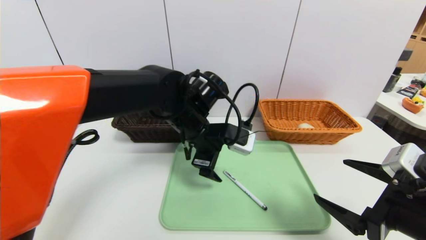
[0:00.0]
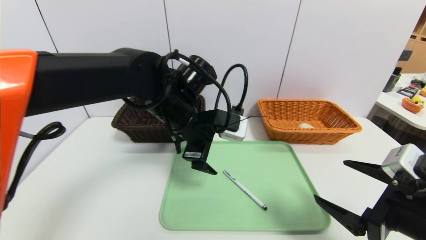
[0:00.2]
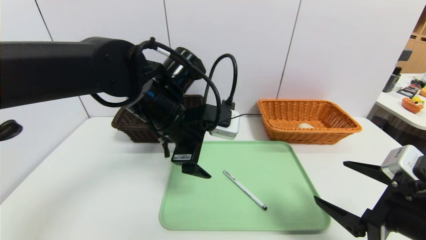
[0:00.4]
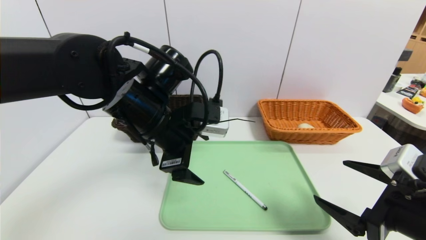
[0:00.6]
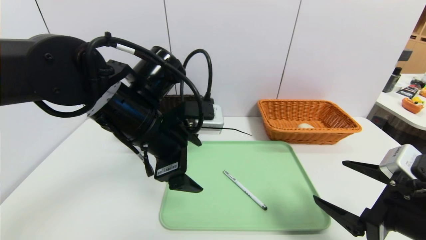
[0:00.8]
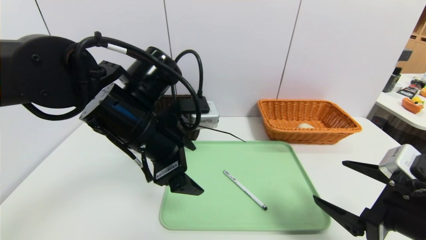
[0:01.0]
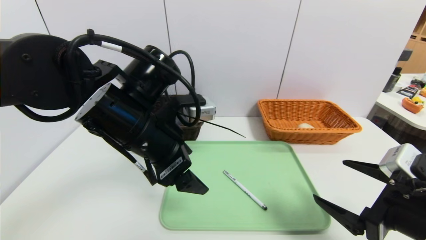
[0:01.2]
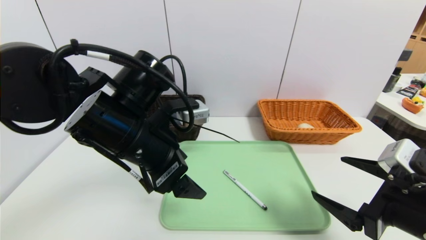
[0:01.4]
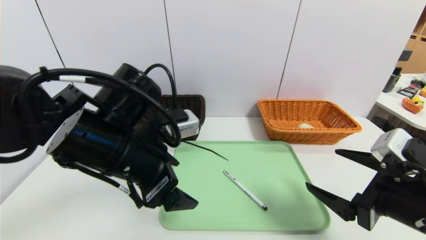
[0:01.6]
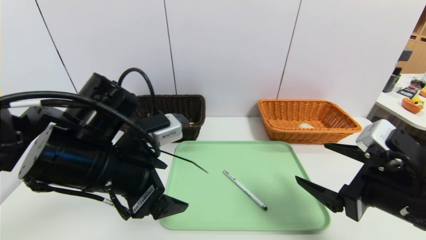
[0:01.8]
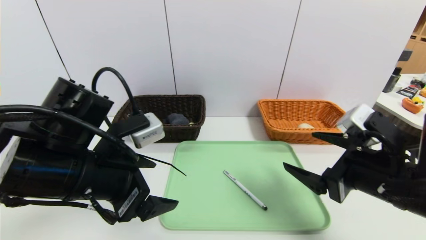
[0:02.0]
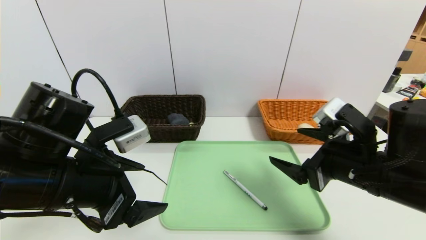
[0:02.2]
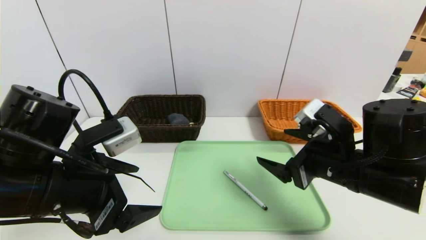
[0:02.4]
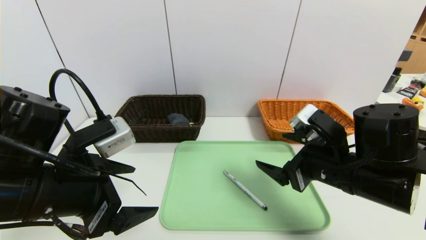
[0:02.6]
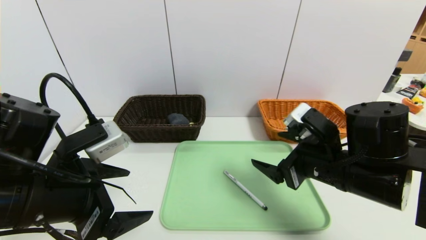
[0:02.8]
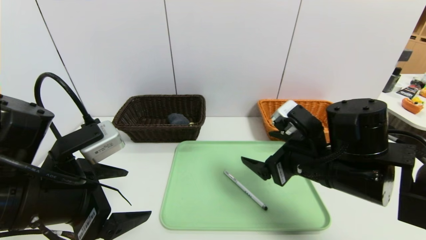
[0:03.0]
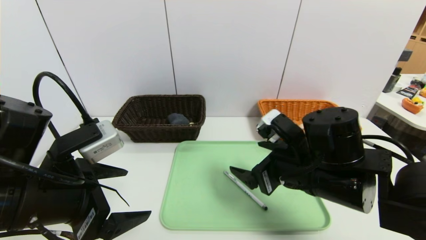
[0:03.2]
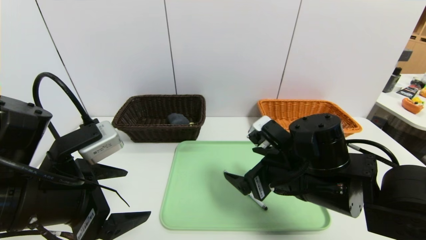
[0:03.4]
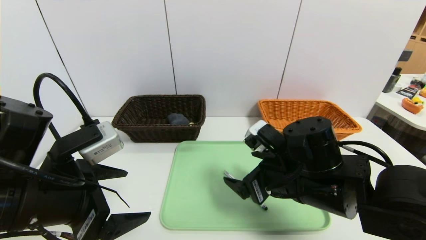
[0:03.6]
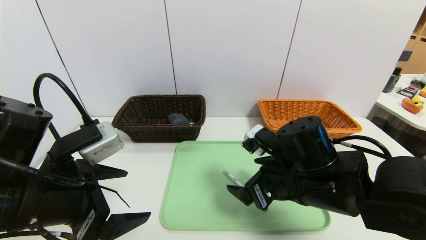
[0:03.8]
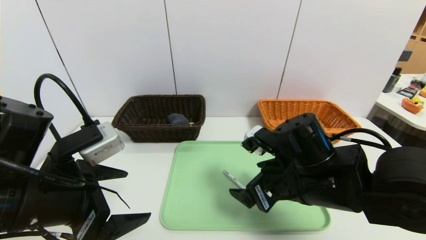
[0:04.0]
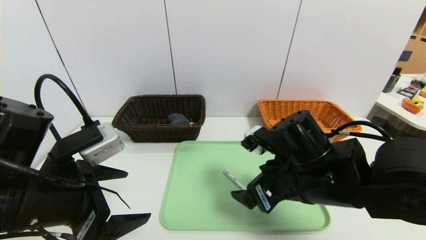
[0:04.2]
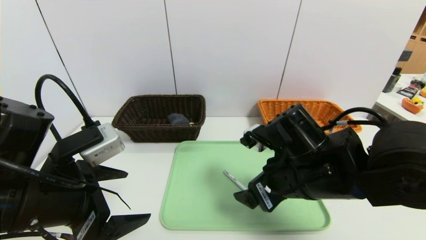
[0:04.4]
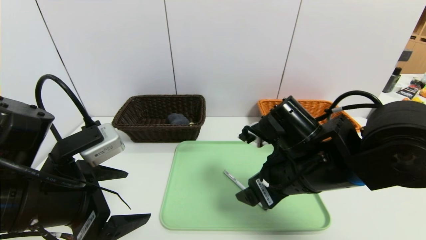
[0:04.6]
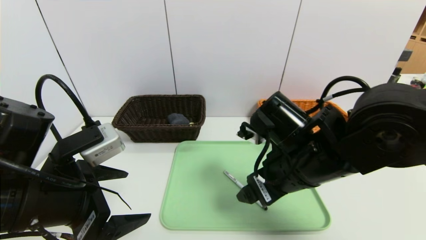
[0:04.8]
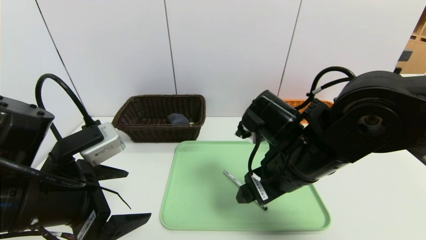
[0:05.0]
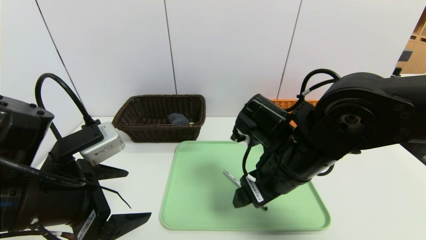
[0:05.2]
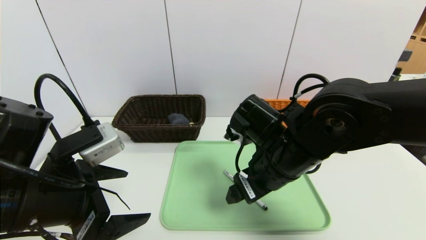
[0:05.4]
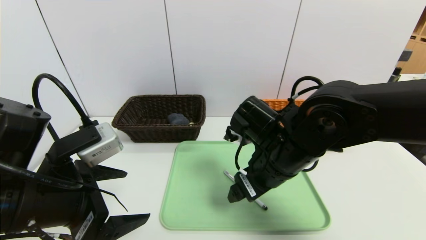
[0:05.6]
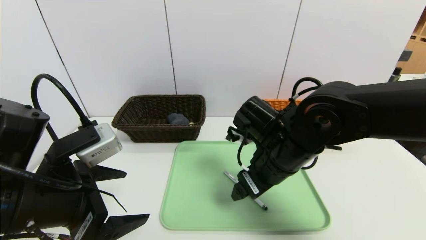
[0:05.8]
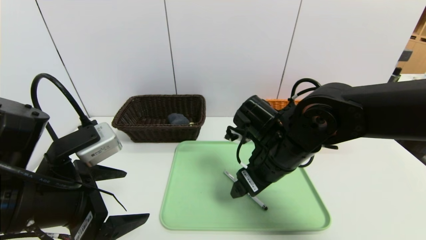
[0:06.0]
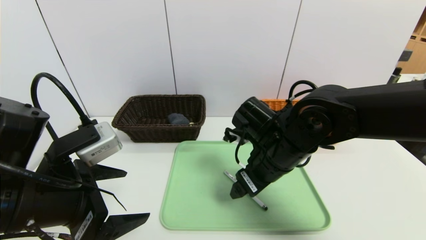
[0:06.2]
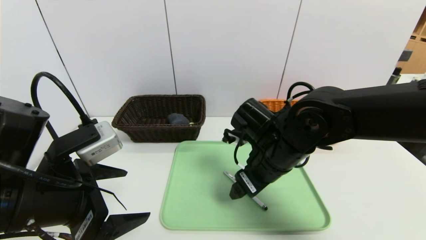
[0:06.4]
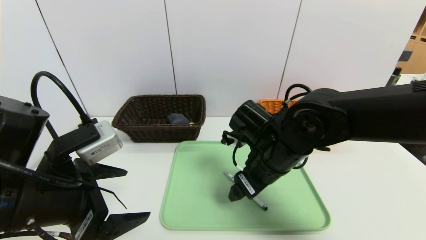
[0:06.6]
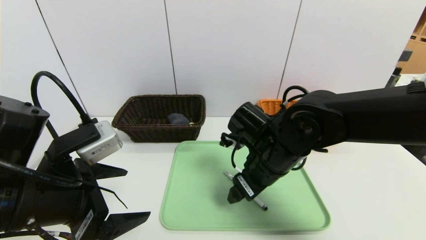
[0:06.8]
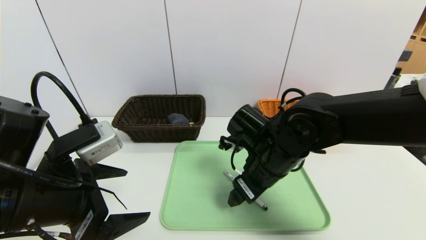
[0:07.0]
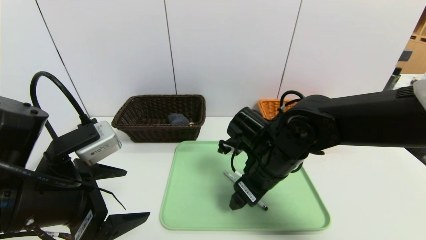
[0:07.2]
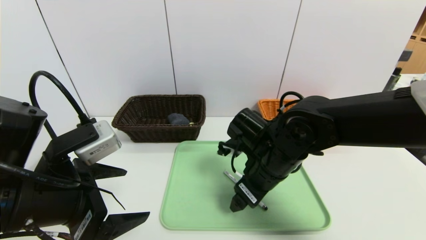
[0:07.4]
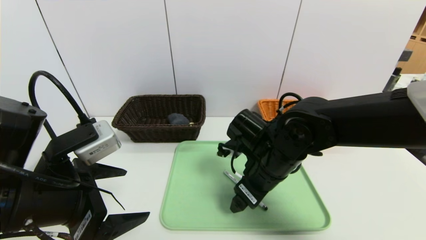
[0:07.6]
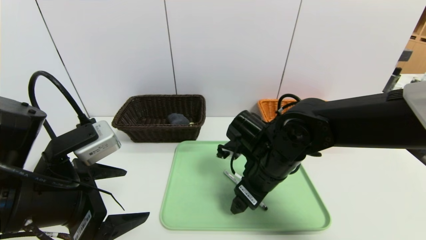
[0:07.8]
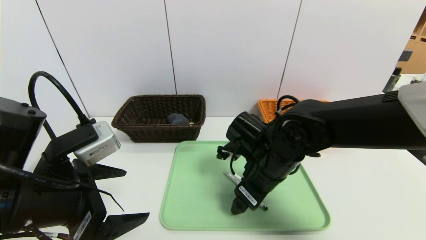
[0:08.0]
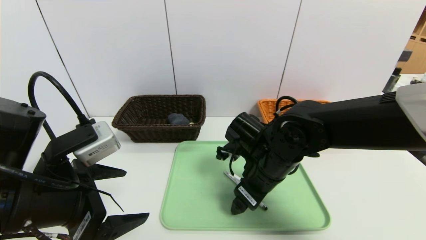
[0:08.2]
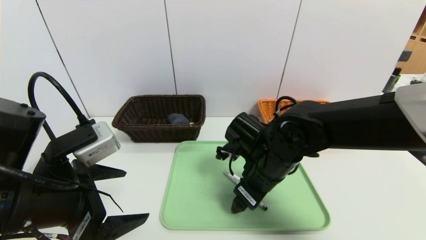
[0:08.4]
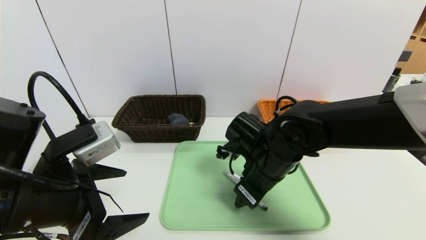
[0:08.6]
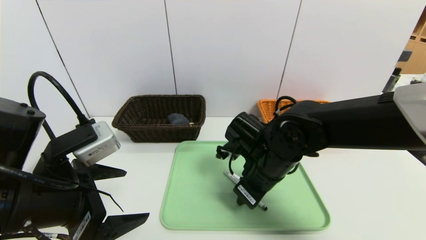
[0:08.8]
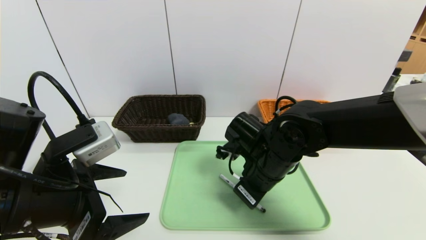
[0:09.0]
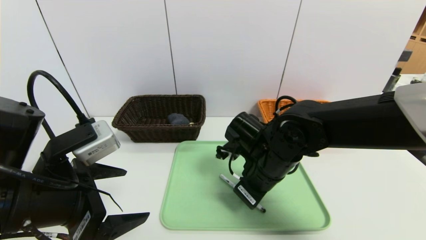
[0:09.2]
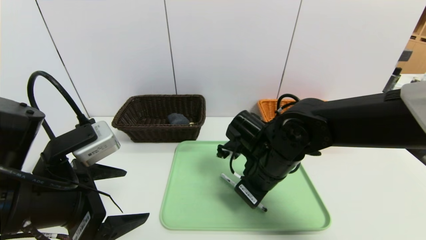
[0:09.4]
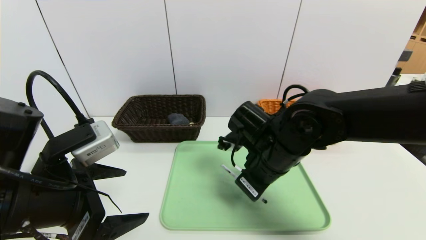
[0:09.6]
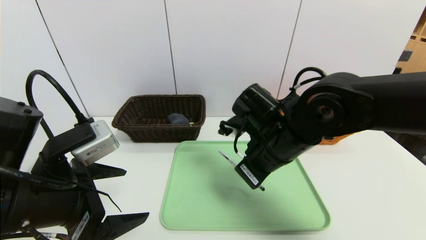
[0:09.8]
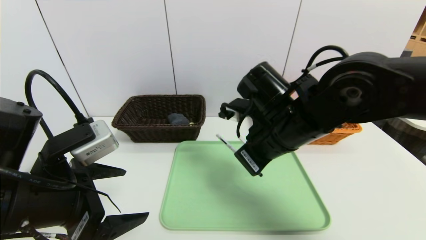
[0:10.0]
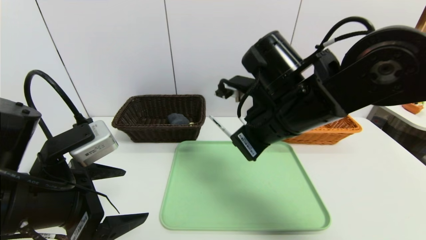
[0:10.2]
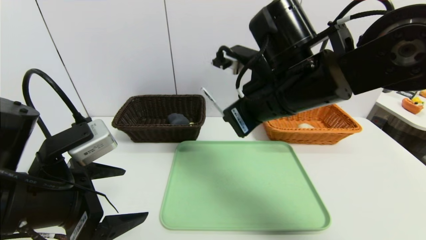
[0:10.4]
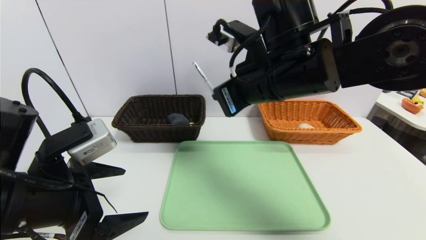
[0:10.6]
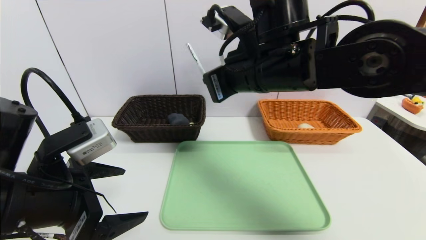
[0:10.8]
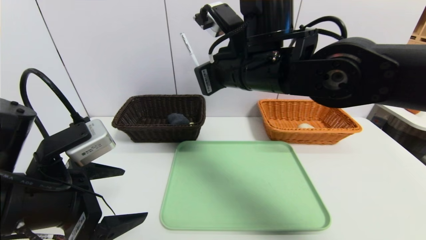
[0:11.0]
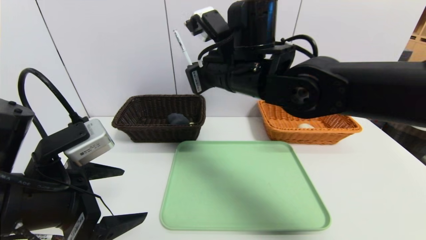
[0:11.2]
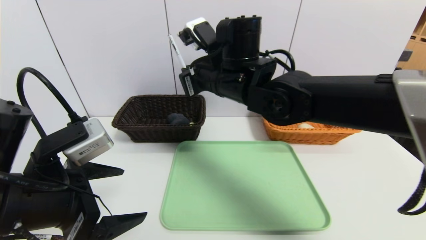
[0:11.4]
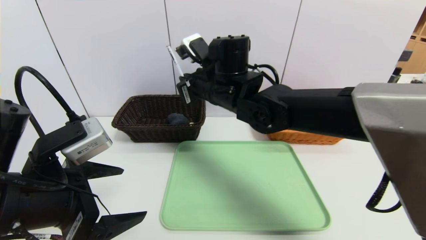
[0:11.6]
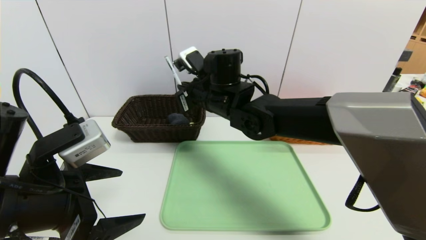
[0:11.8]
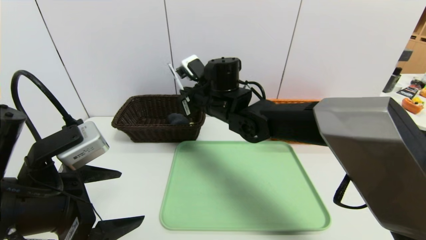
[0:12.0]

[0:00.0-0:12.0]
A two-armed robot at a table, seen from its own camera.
Task of the whole recording: place the food in the right basket with the right gripper, and place the non food items in the left basket with the left gripper.
0:00.0 to 0:01.6: The left gripper moves backward and to the left, roughly 15 cm.
0:01.6 to 0:03.0: The right gripper moves to the left and forward, approximately 10 cm; the left gripper moves to the left and backward, some 10 cm.
0:04.4 to 0:06.0: The right gripper ends up roughly 5 cm from where it was.
0:06.0 to 0:07.6: The grippers move only a little.
0:07.6 to 0:09.0: The right gripper closes up.
0:09.0 to 0:10.4: The right gripper goes roughly 15 cm upward.
0:10.4 to 0:12.0: The right gripper goes some 15 cm forward, to the left and downward.

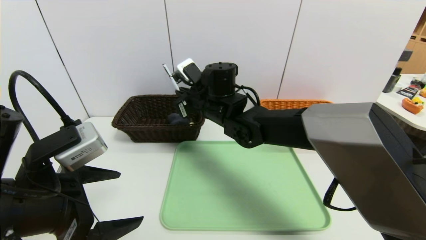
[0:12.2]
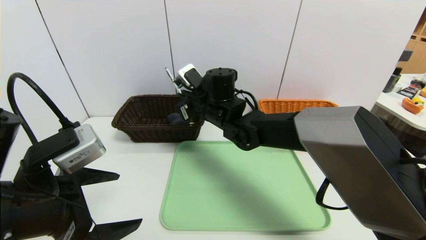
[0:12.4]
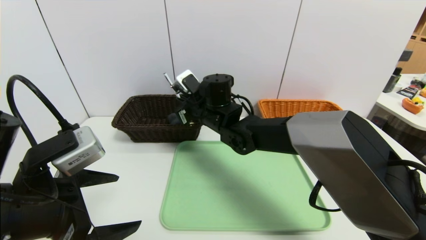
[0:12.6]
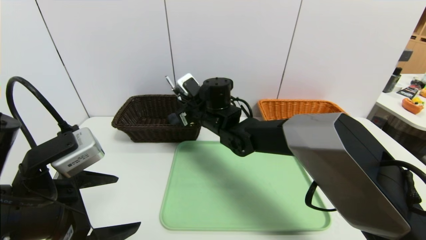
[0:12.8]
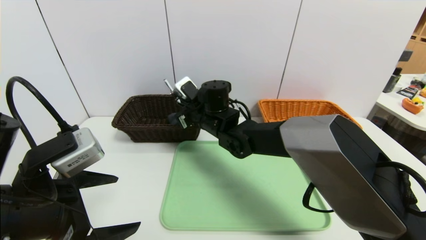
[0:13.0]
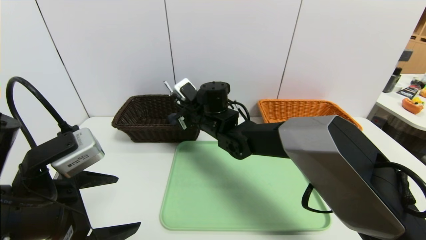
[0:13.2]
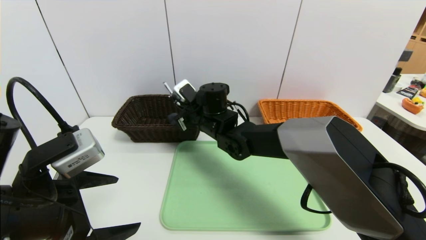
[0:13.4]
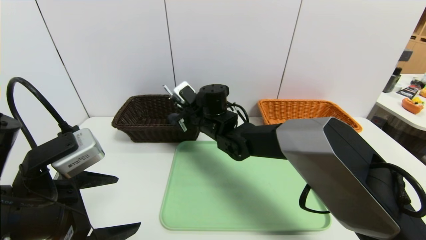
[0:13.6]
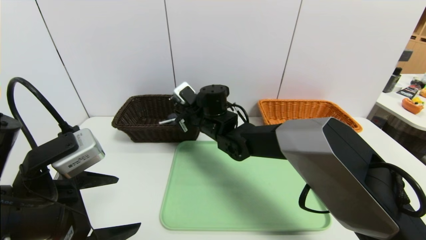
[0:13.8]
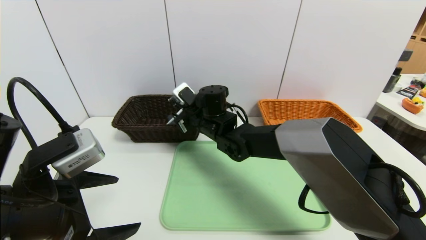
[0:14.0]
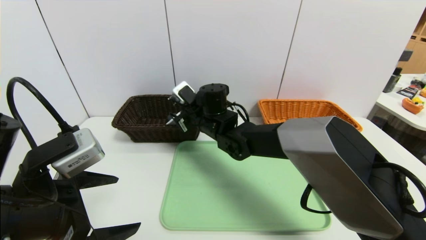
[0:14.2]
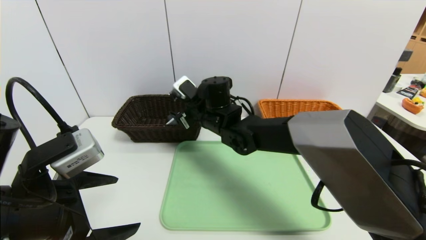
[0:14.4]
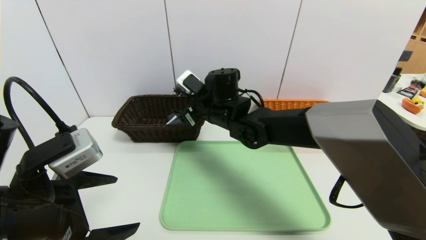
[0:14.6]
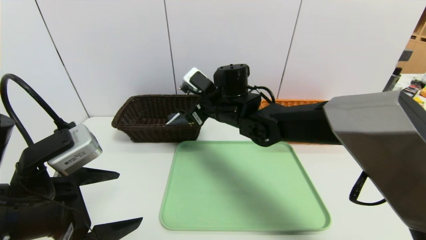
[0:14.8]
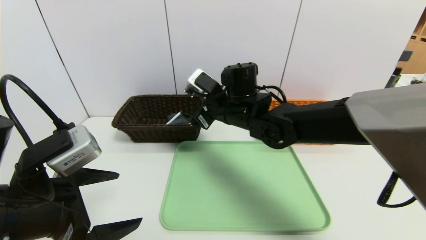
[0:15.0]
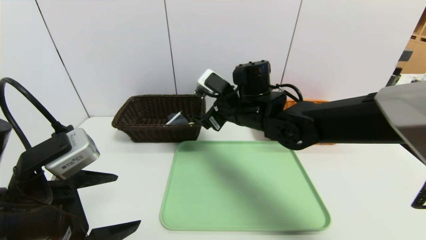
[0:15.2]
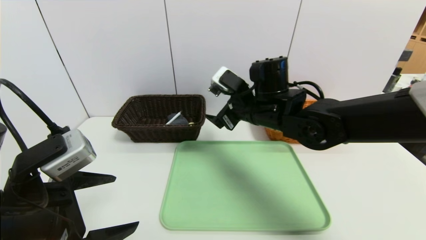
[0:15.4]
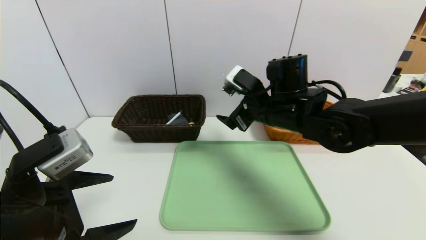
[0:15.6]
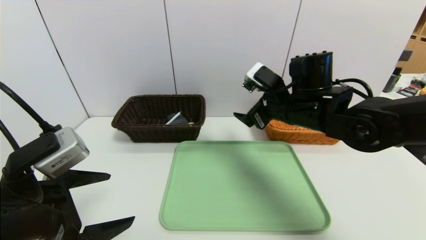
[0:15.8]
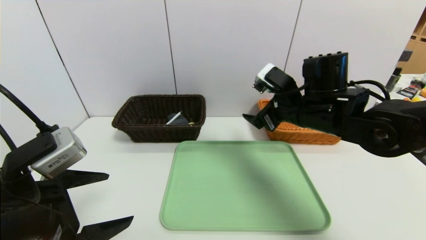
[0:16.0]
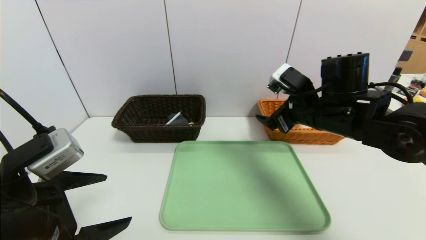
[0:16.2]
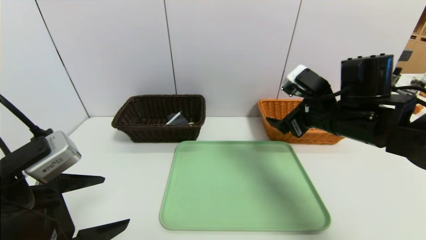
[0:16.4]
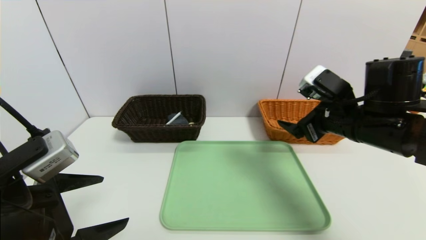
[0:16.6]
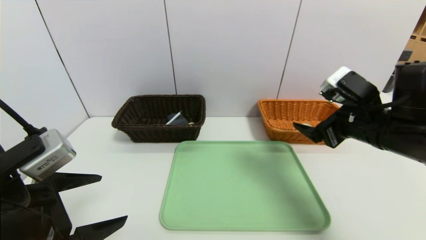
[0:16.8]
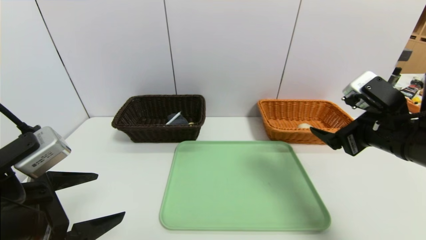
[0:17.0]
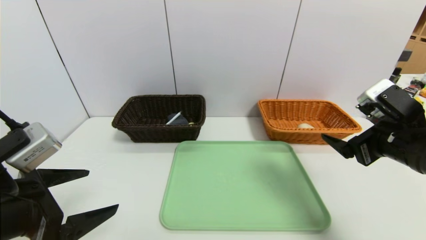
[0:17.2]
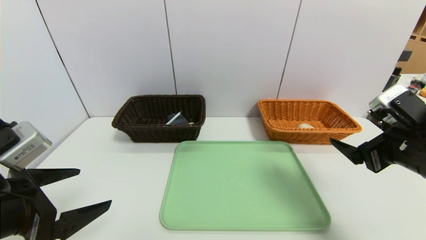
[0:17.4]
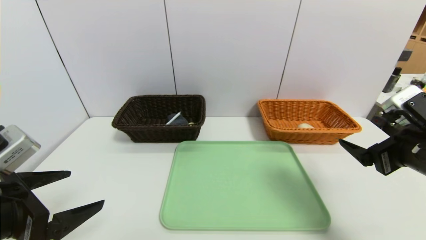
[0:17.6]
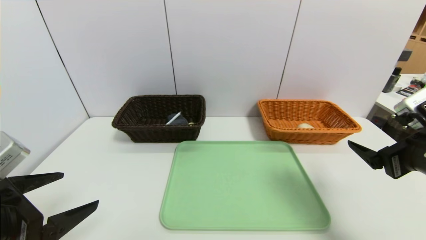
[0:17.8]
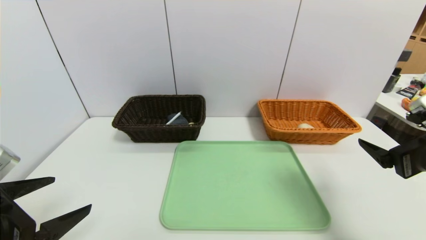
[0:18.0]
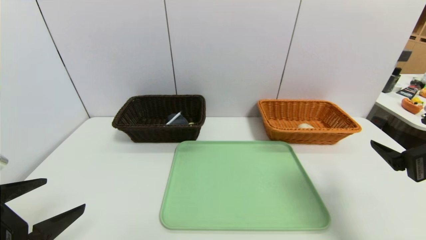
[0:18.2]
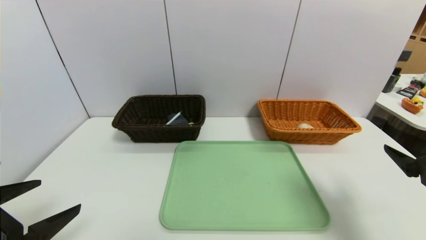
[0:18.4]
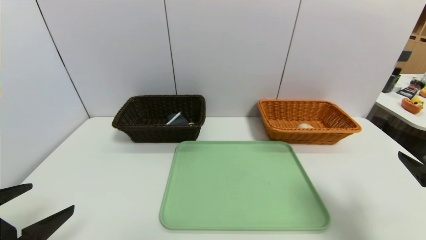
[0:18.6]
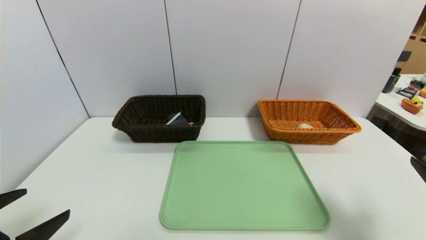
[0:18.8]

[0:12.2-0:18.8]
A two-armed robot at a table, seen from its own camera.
Task of the whole recording: place the food in the right basket with the right gripper, and place the non food items in the left basket with the left gripper.
0:12.2 to 0:13.8: The right gripper goes some 5 cm downward, and opens up.
0:13.8 to 0:15.4: The right gripper heads to the right, upward and backward, covering roughly 15 cm, and opens its fingers.
0:15.4 to 0:17.2: The right gripper heads to the right and backward, covering approximately 25 cm.
0:17.2 to 0:18.8: The left gripper heads backward, covering approximately 5 cm, while the right gripper goes some 10 cm backward and to the right.
